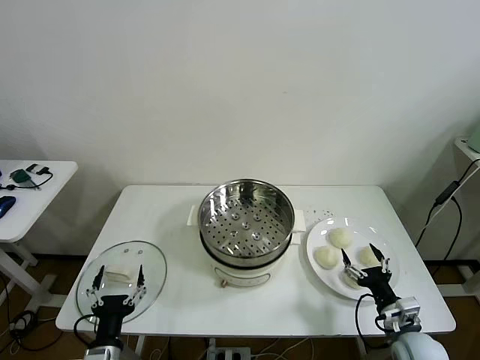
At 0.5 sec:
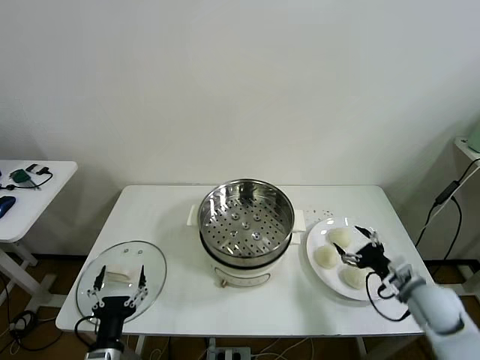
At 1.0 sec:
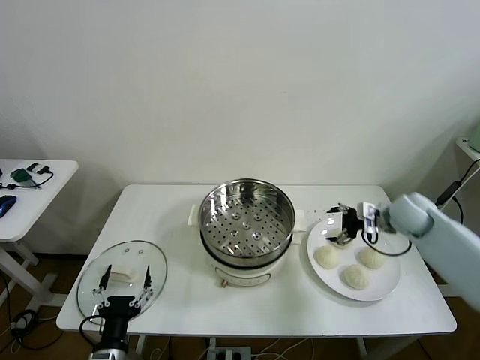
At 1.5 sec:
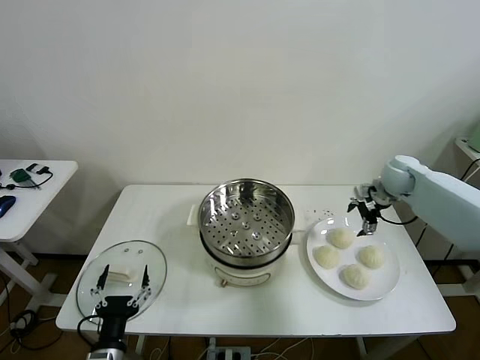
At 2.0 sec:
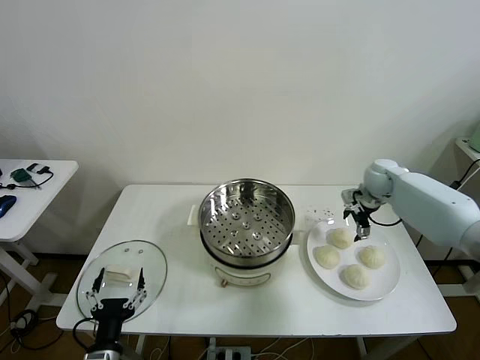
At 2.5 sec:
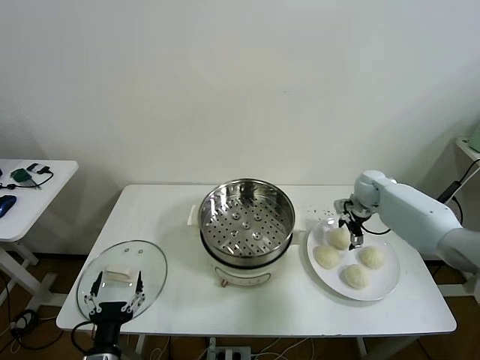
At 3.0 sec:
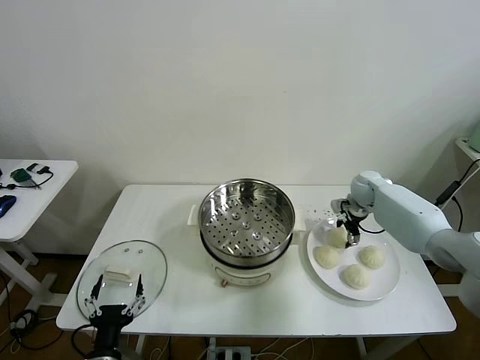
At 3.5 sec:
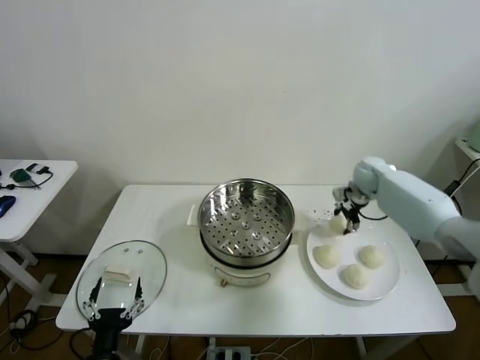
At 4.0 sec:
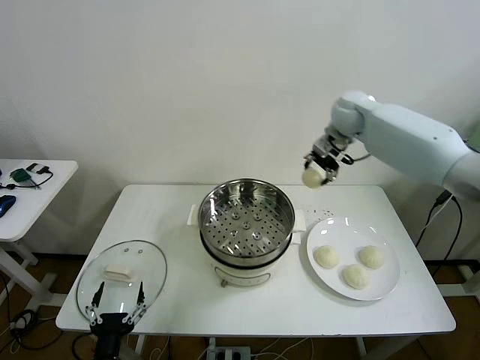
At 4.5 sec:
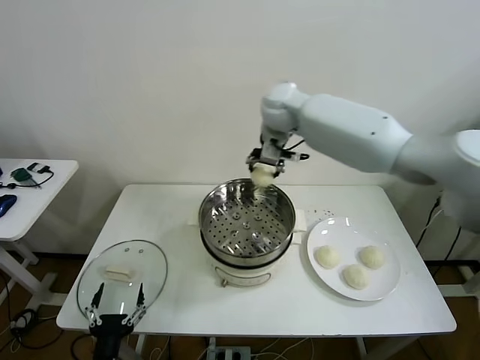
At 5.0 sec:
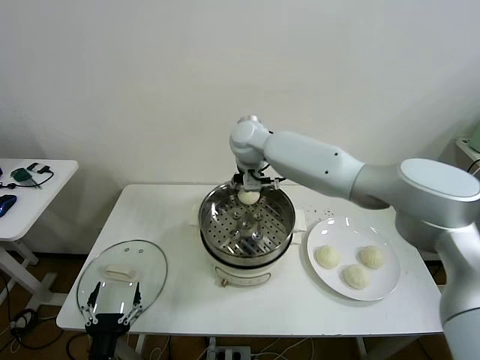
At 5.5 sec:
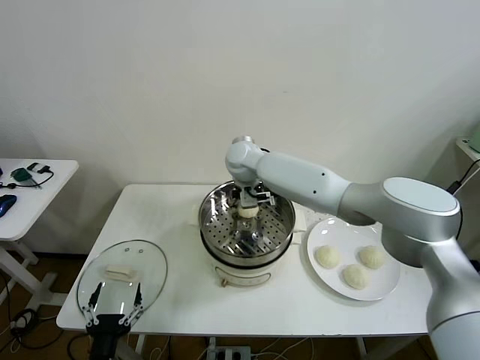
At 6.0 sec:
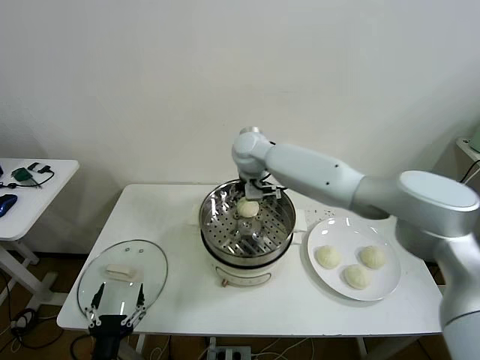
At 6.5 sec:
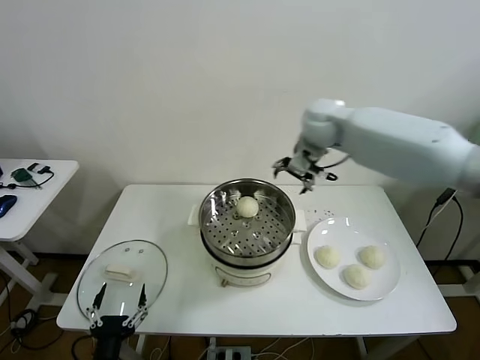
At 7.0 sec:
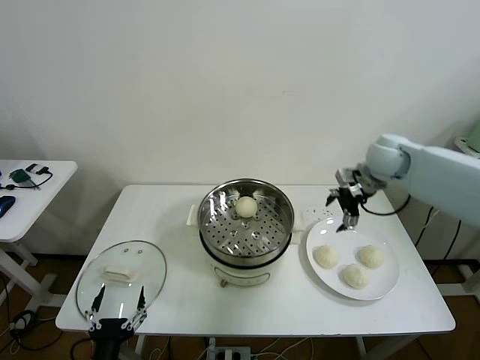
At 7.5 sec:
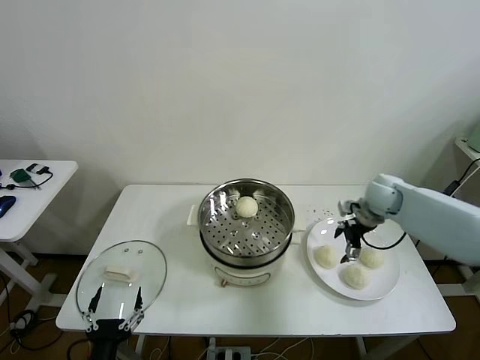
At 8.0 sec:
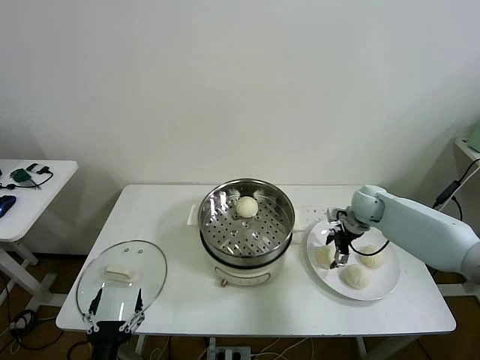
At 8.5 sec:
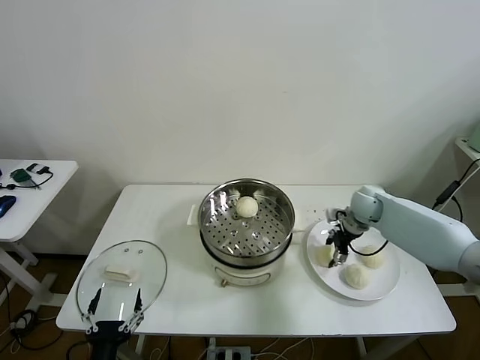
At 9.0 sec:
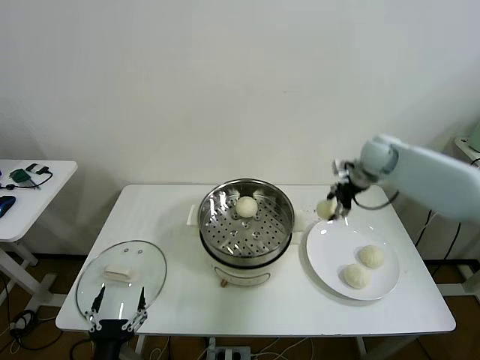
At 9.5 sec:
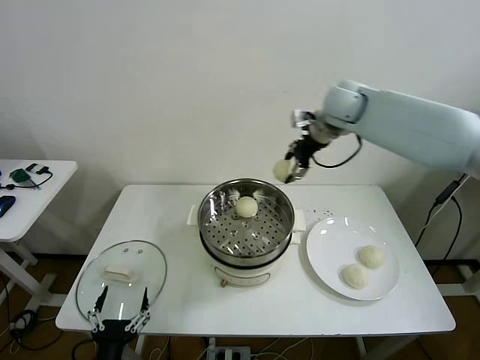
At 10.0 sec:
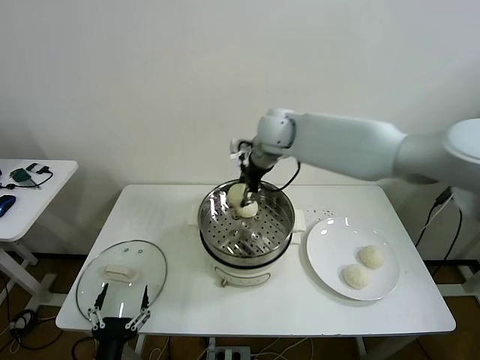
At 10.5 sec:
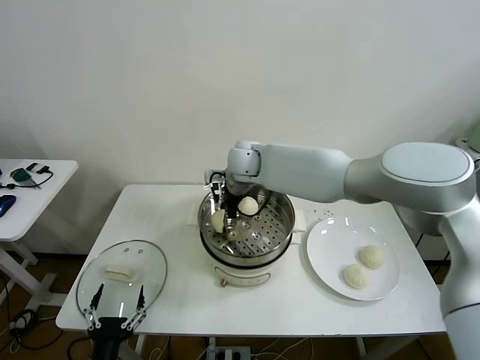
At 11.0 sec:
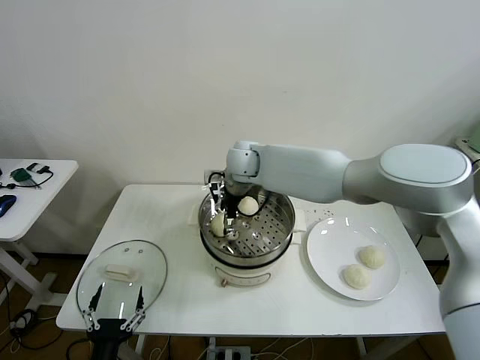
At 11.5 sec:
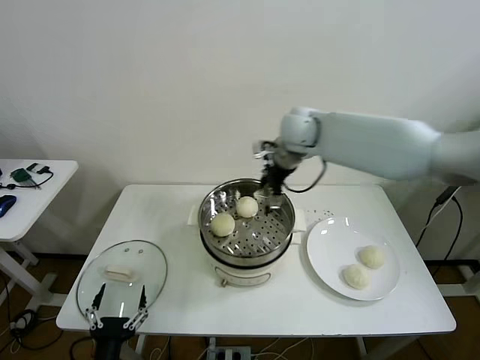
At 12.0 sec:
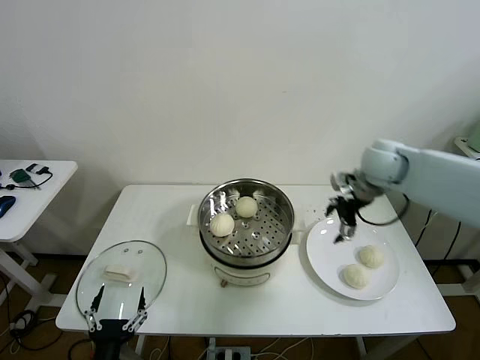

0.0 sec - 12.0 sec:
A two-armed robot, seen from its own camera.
Task of the whole recording: take steamed baozi put them in steamer then cover it.
Step, 0.0 sec - 3.0 sec: Grasp the baozi in the plate with right gripper.
Step, 3.5 sec - 5.5 sec: Place the baozi on the steamer with right gripper.
Step, 6.0 sec - 8.5 sec: Grasp the baozi in the plate with right gripper.
Step, 9.0 sec - 11.0 sec: Place the baozi on the steamer with right gripper.
2.0 sec - 4.0 sec: The right gripper goes some 30 cm upward and to the left, and closes its fingers.
4.0 sec - 6.0 sec: The right gripper goes some 15 cm to the left and downward, and opens up.
6.0 sec - 8.0 sec: The right gripper is displaced to the right and downward by about 35 cm.
8.0 sec - 10.0 sec: The right gripper shifts approximately 35 cm to the left and upward, and closes.
10.0 sec - 12.0 sec: The right gripper heads to the right, covering approximately 30 cm, and opens up.

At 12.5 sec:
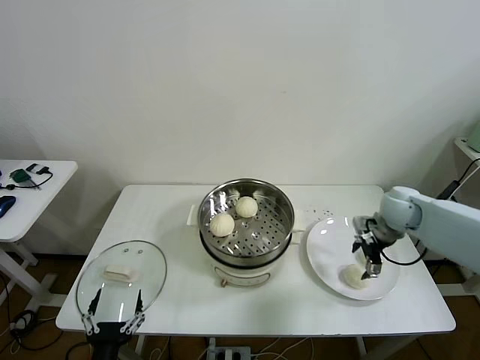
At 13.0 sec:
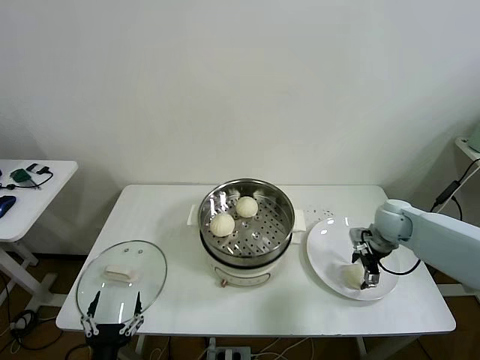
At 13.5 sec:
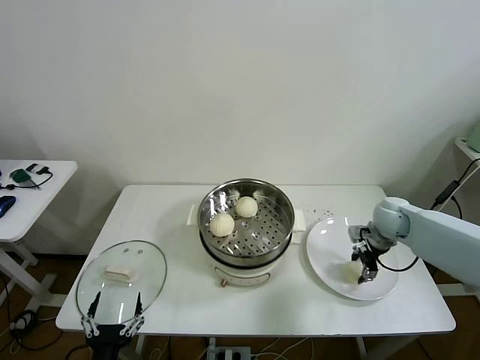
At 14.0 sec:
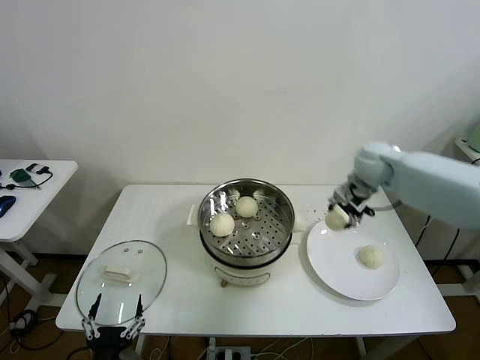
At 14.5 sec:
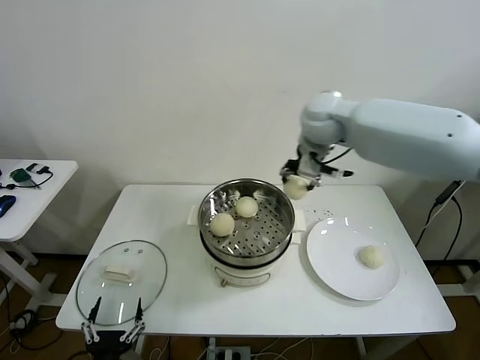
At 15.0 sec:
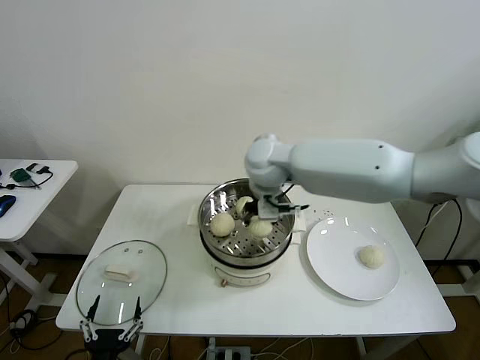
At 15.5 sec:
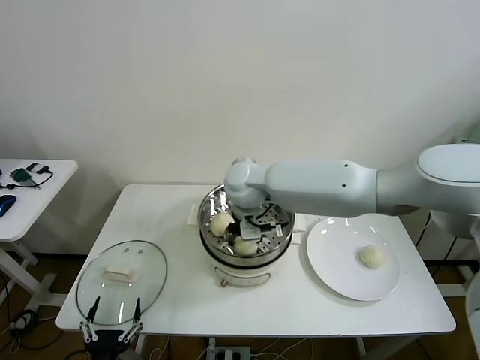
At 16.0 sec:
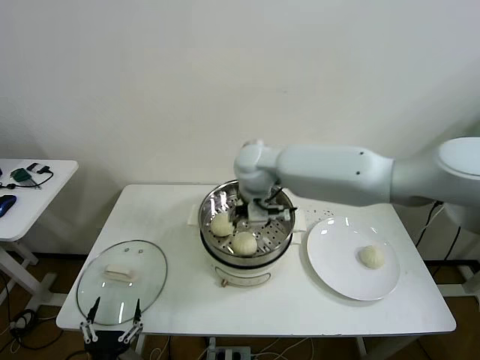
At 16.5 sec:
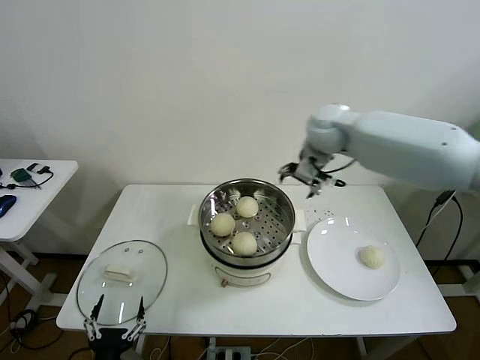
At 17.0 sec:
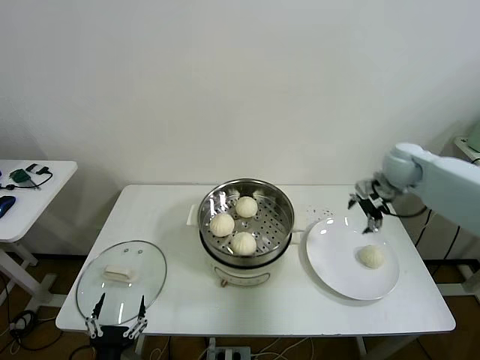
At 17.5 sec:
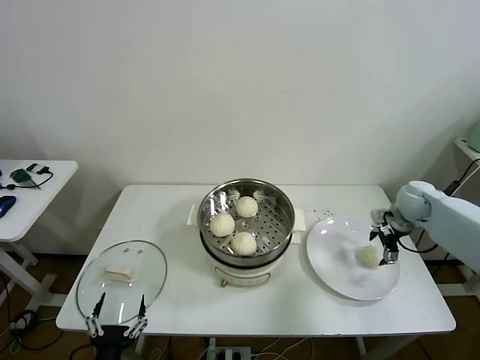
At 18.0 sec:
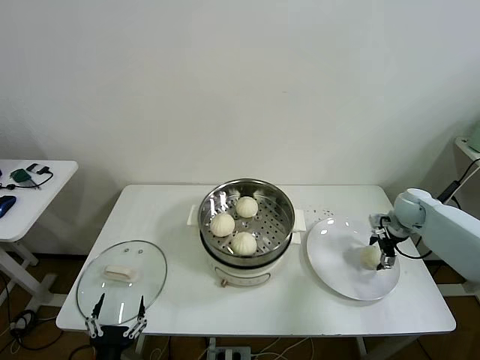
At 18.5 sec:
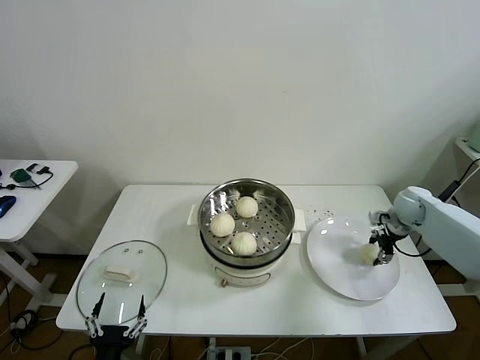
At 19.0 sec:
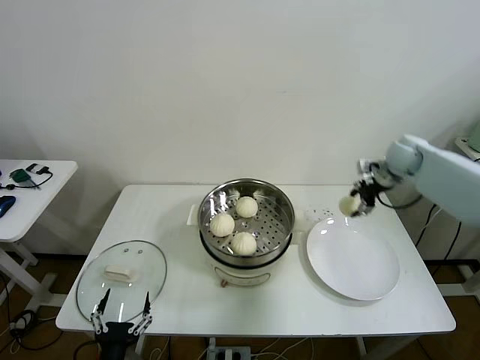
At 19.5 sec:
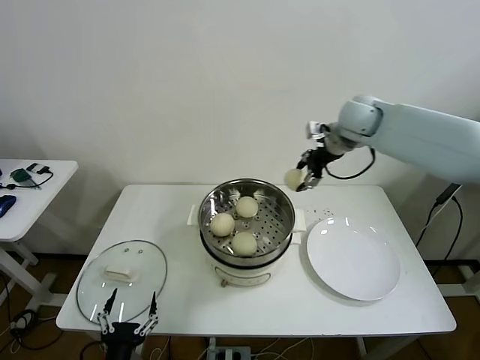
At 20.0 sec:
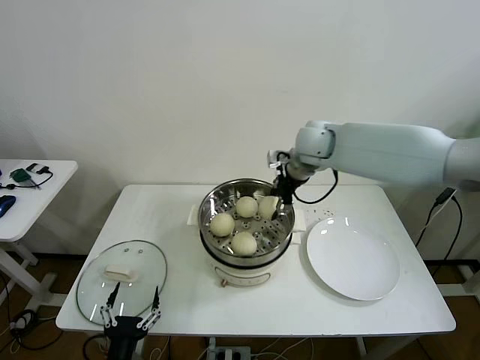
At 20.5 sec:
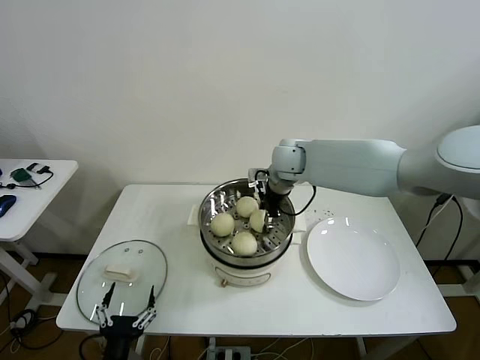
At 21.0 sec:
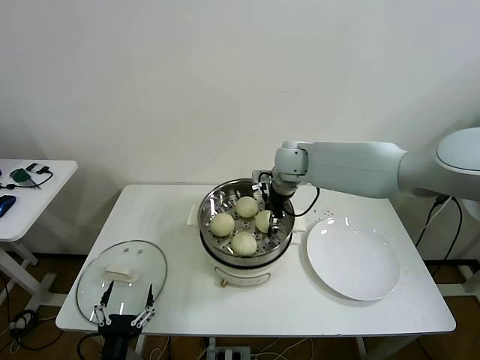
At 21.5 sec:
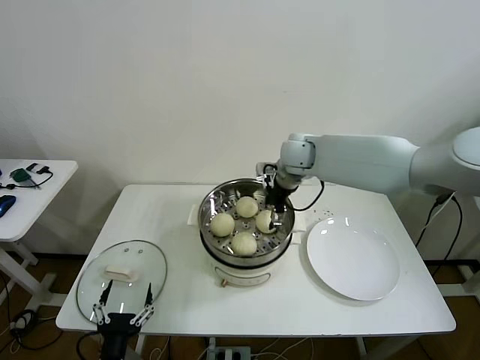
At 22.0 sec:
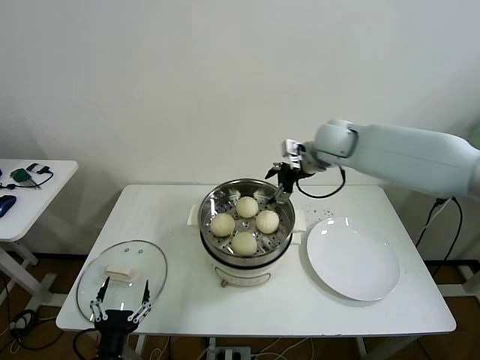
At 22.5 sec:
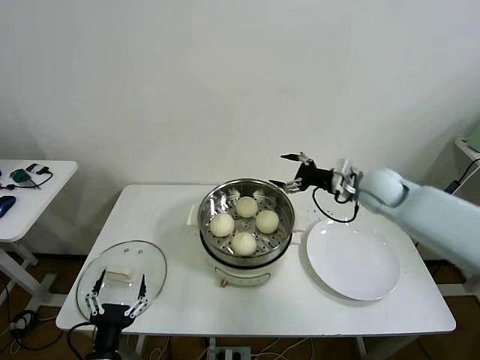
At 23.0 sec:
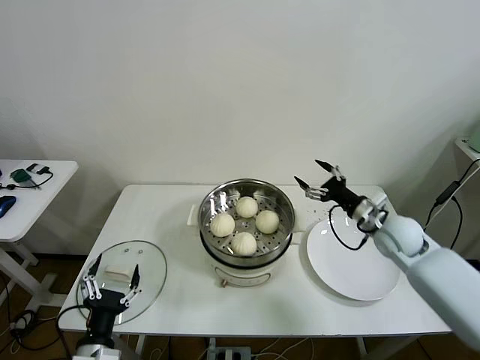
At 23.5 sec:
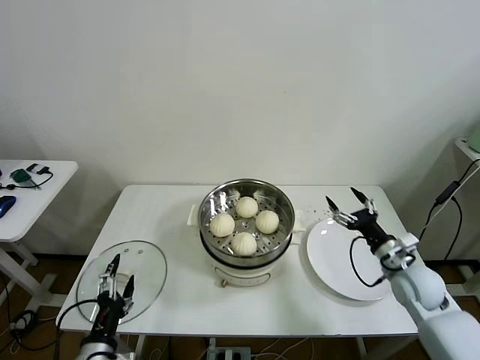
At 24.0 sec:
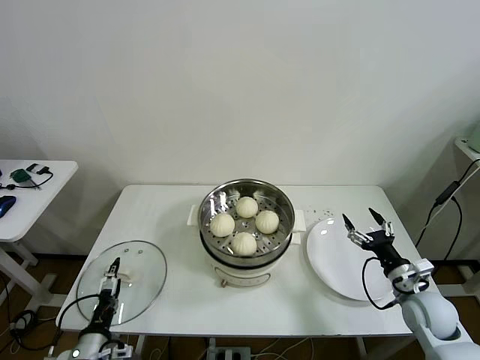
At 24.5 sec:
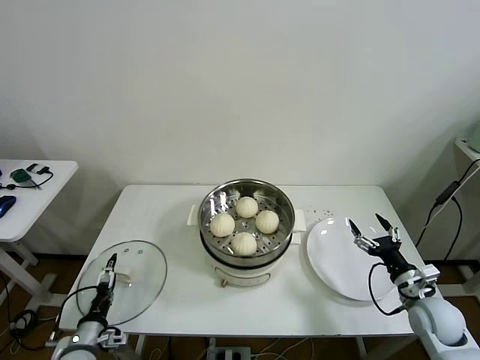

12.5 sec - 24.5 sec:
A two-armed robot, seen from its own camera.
Task of the whole recording: take steamed baozi put them in steamer then cover it.
Step, 13.5 sec - 15.5 sec: Place the baozi on the steamer with right gripper.
Step, 16.0 sec - 18.0 sec: Grasp the baozi in the plate with right gripper.
Step, 18.5 sec - 21.0 sec: Place the baozi on the steamer with right gripper.
12.5 sec - 14.5 sec: The right gripper is displaced to the left and upward by approximately 35 cm, and closes up.
14.5 sec - 16.5 sec: The right gripper travels to the right by approximately 10 cm, and opens up.
16.5 sec - 18.5 sec: The right gripper moves to the right and downward, some 30 cm, and closes.
18.5 sec - 20.5 sec: The right gripper goes approximately 35 cm to the left.
20.5 sec - 22.5 sec: The right gripper goes roughly 20 cm to the right, and opens its fingers.
22.5 sec - 24.5 sec: The right gripper goes approximately 30 cm backward, downward and to the right, while the left gripper heads to the left, forward and downward, covering about 15 cm.

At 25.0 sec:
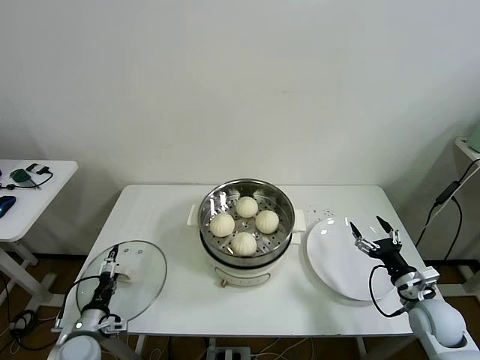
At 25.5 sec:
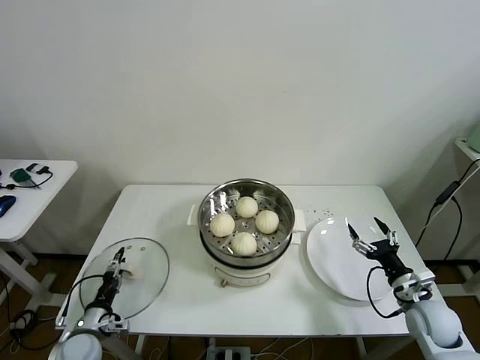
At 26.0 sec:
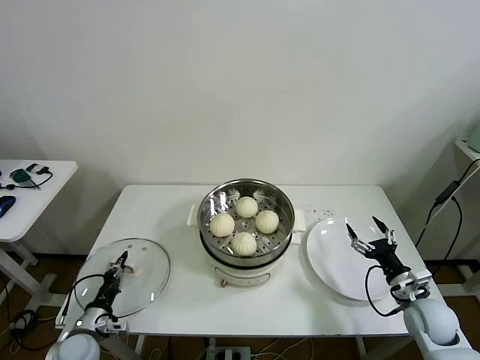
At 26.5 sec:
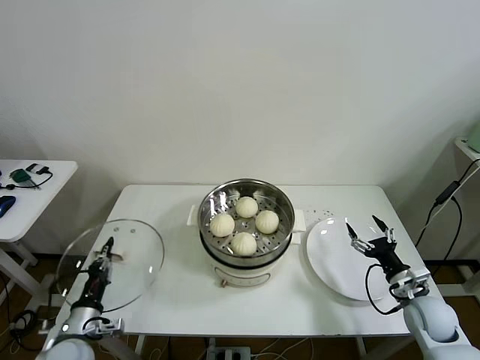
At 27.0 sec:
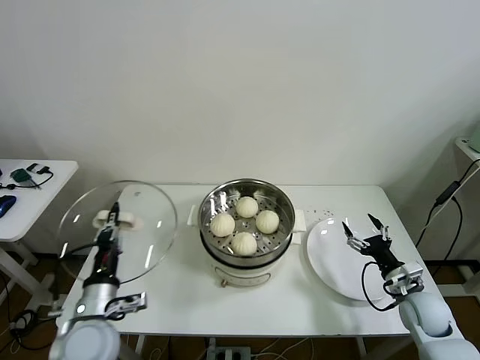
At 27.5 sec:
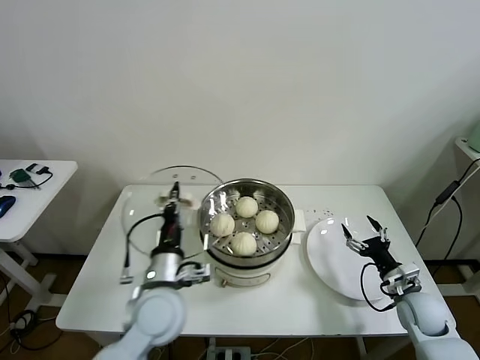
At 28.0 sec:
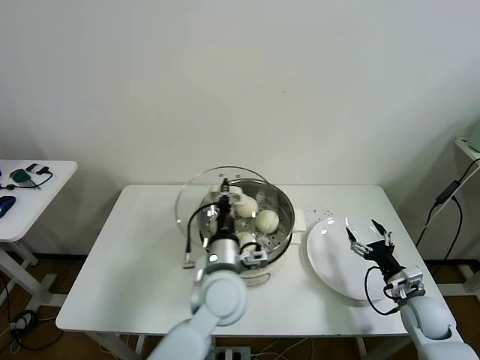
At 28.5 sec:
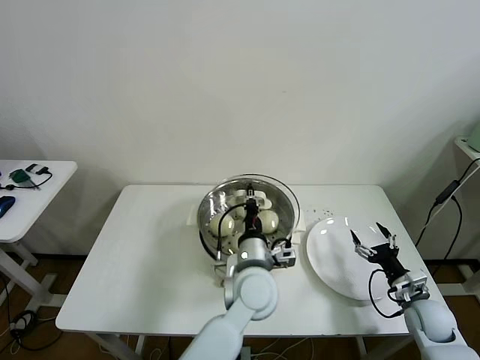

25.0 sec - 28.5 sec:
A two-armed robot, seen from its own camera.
Task of the whole recording: take steamed baozi put them in steamer then cover it.
25.0 sec - 27.0 sec: The left gripper shifts roughly 20 cm upward and to the right, and closes its fingers.
27.0 sec - 28.5 sec: The left gripper moves to the right, about 30 cm.
